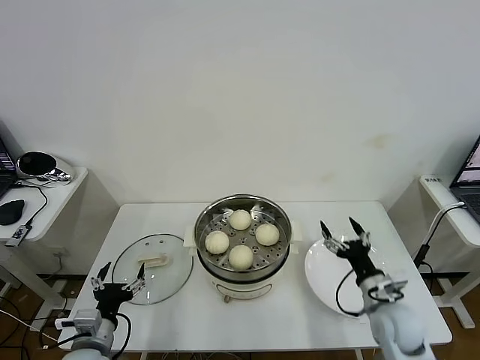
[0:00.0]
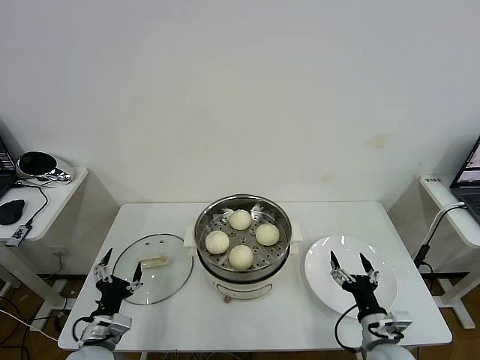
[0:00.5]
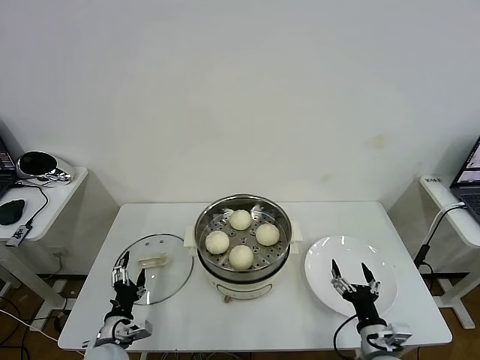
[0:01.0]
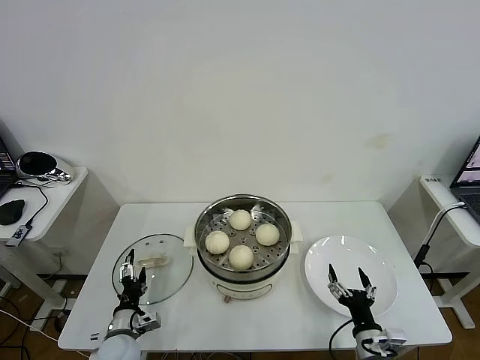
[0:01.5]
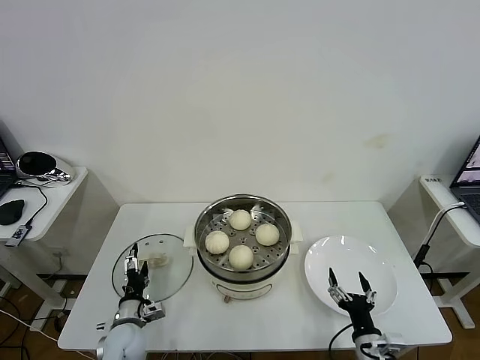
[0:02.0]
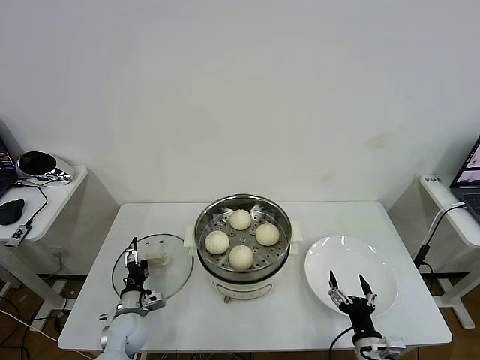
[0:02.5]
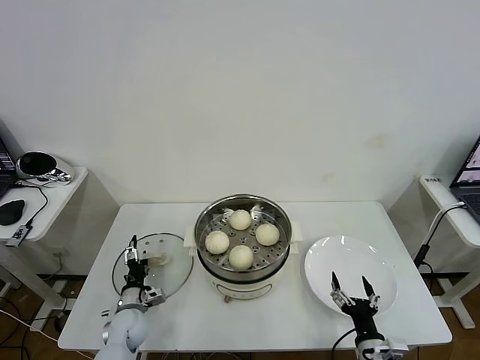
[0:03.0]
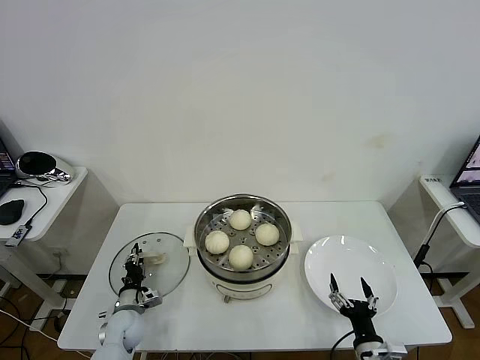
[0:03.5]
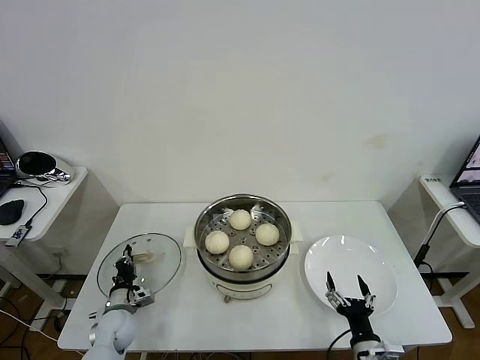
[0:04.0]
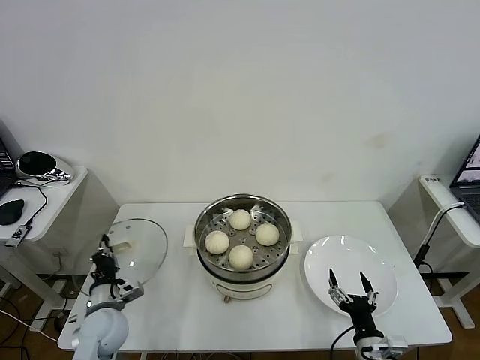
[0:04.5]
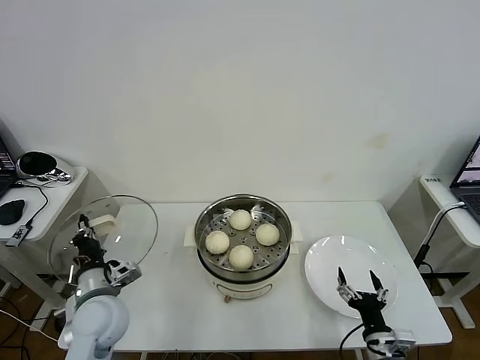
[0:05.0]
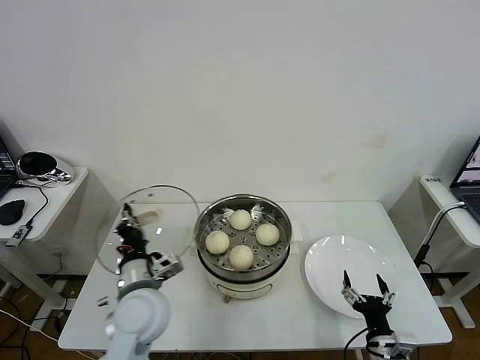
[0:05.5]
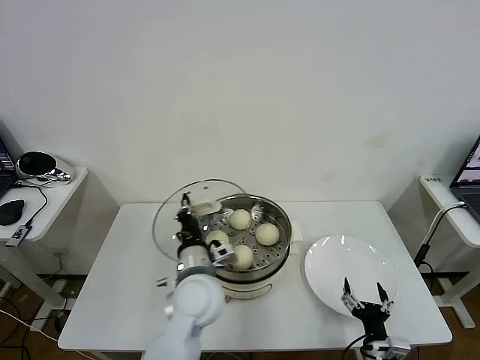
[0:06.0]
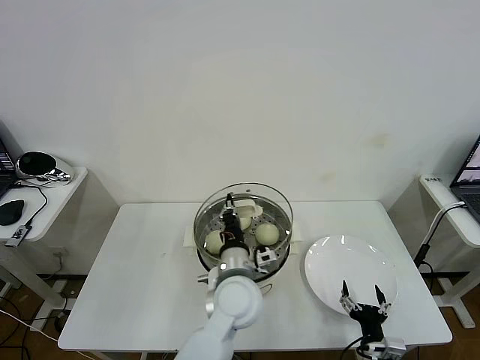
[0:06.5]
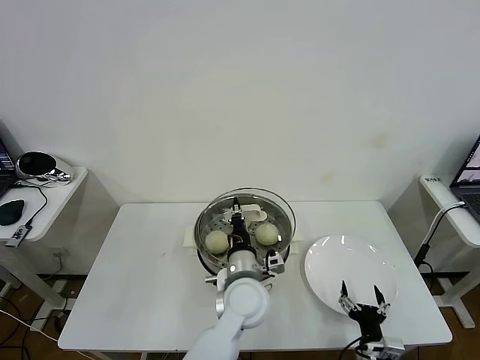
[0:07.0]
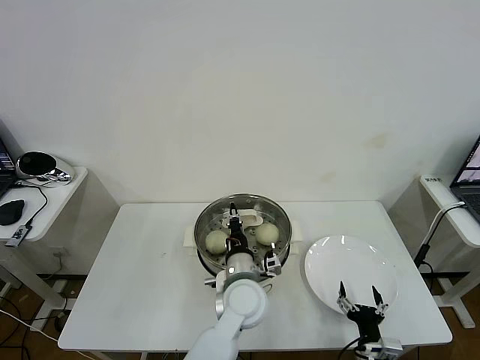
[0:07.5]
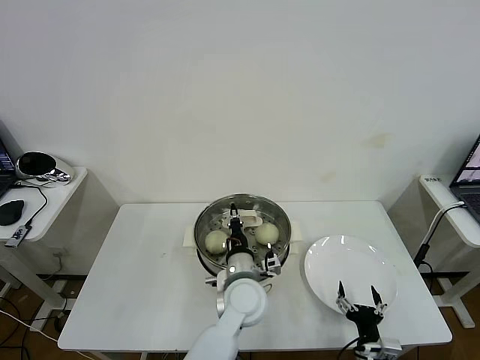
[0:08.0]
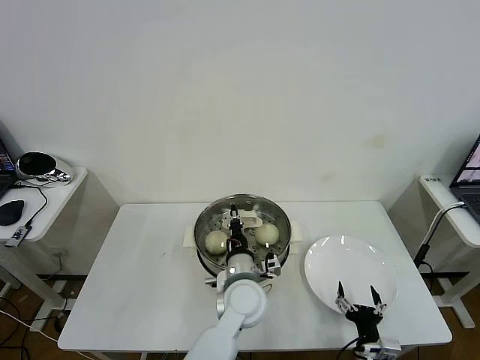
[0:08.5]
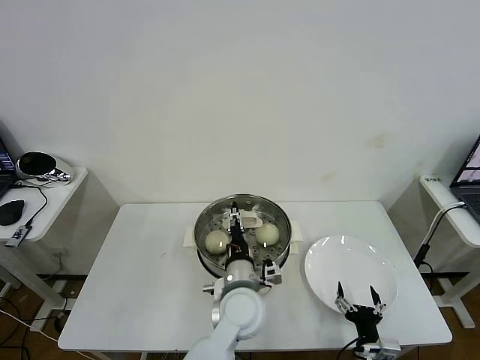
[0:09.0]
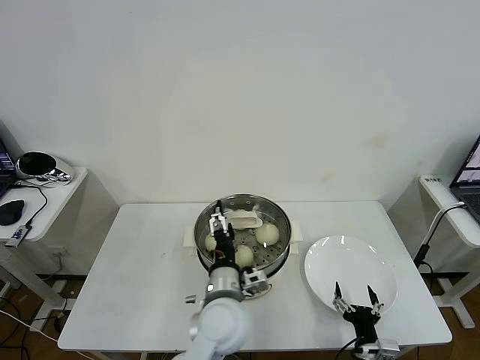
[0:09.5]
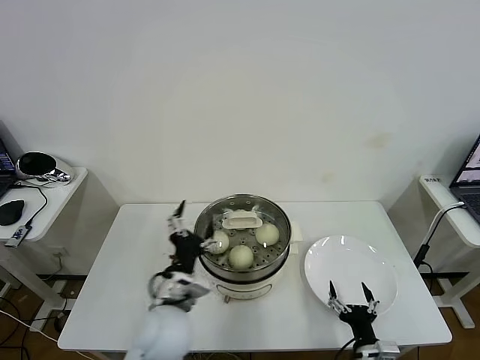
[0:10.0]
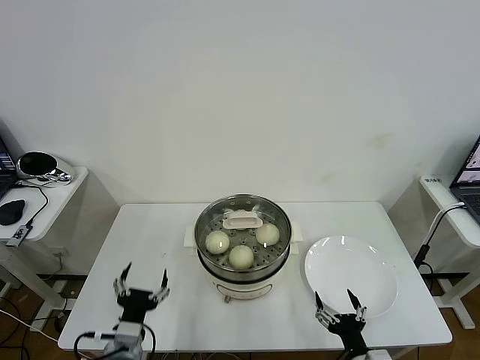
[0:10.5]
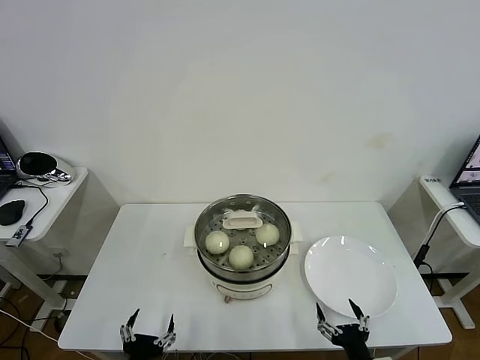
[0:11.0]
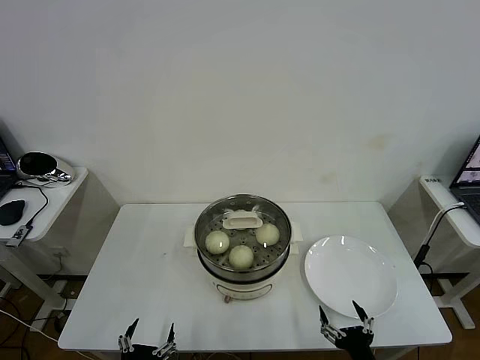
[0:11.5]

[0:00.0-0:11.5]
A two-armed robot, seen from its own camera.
Task of the whole recording: take steamed baozi put them in steamer then cover it.
Step, 0:00.0 to 0:03.5: Grasp the pot lid with left gripper.
Step, 0:04.5 to 0:09.0: Place the pot lid on the steamer with left gripper.
0:00.0 to 0:02.0: The left gripper heads downward and forward, covering some 15 cm. Meanwhile the right gripper is displaced backward and downward by some 15 cm.
0:02.0 to 0:04.0: The left gripper ends up about 5 cm from where it was, and closes up.
0:04.0 to 0:06.0: The left gripper is displaced to the right and upward by roughly 30 cm.
0:06.0 to 0:07.5: The left gripper is displaced to the right by about 10 cm.
0:07.5 to 0:09.5: The left gripper moves roughly 5 cm, and opens.
0:09.5 to 0:11.5: The right gripper shifts approximately 10 cm backward and upward. Meanwhile the left gripper heads to the left, backward and downward, covering approximately 30 cm.

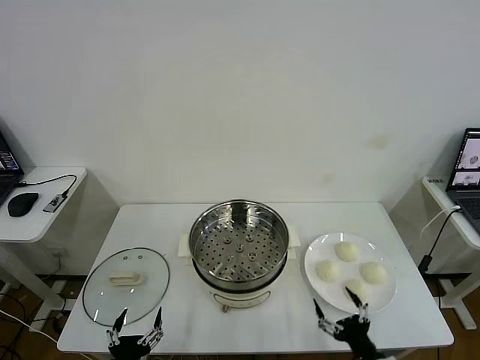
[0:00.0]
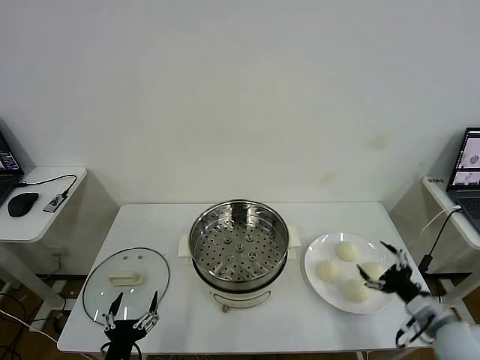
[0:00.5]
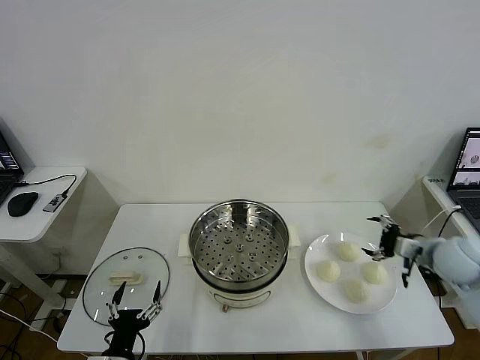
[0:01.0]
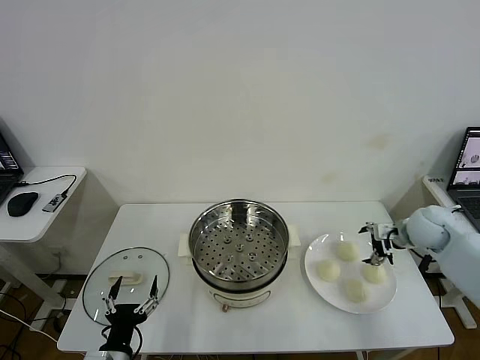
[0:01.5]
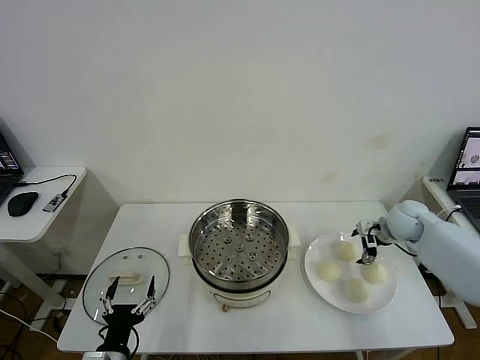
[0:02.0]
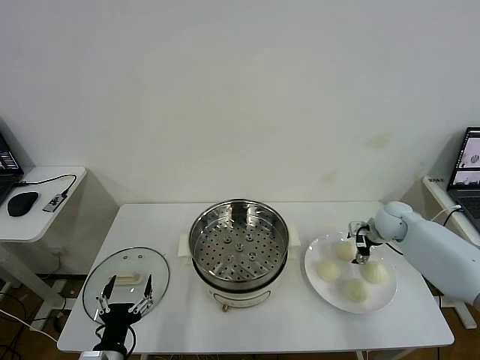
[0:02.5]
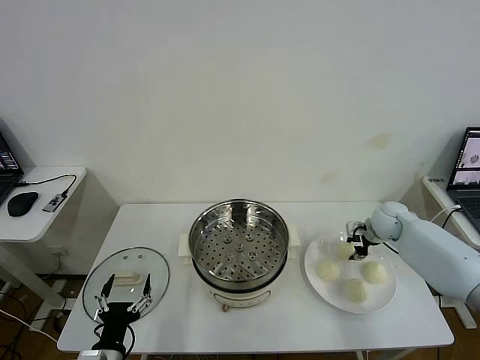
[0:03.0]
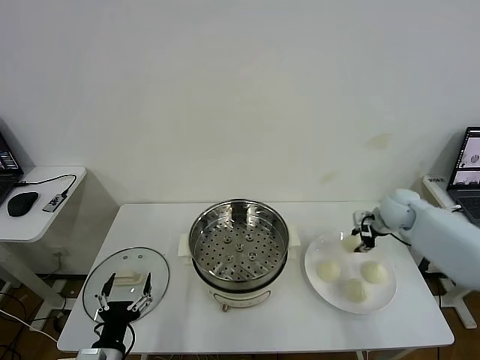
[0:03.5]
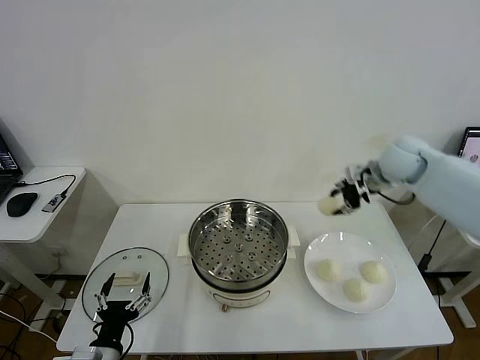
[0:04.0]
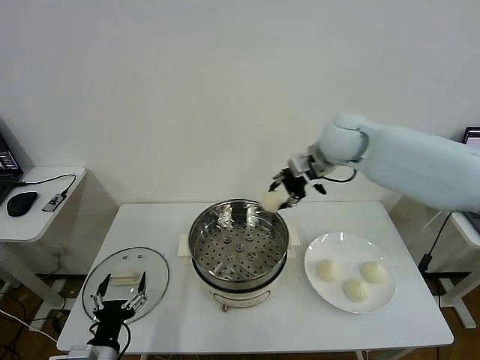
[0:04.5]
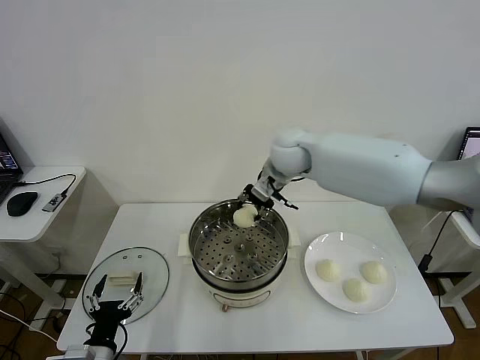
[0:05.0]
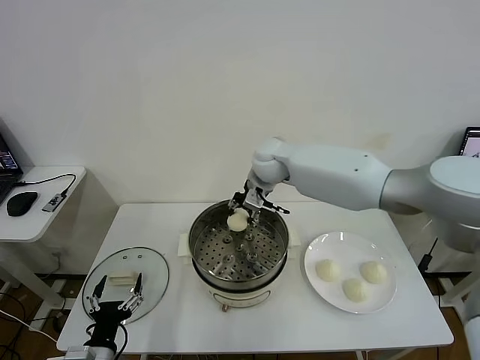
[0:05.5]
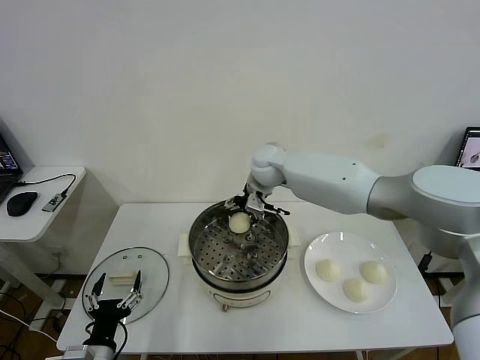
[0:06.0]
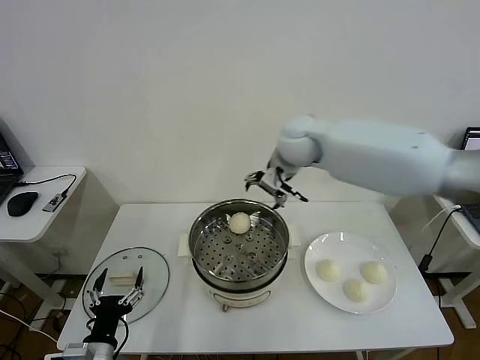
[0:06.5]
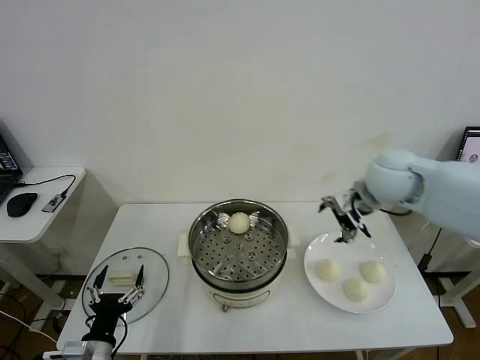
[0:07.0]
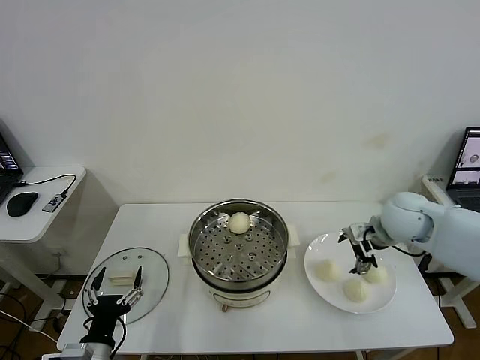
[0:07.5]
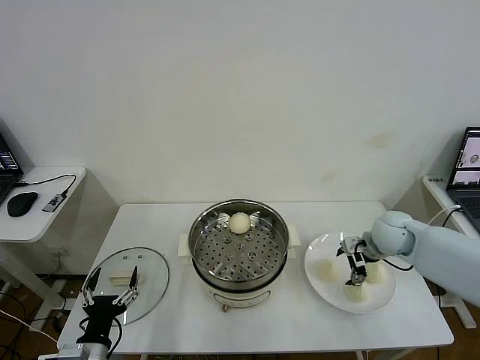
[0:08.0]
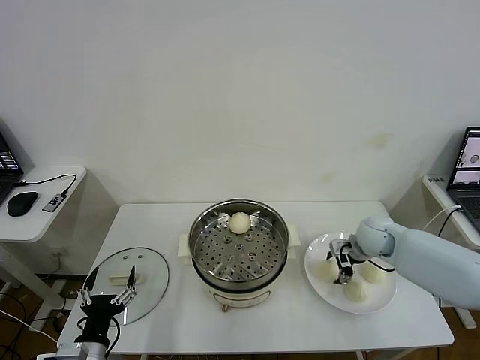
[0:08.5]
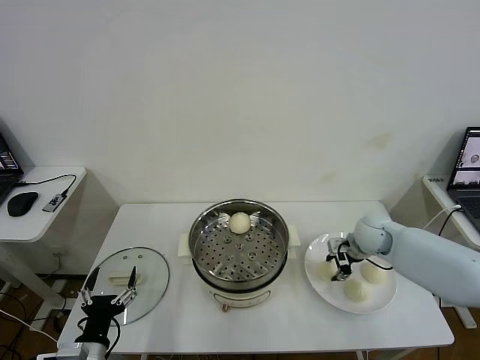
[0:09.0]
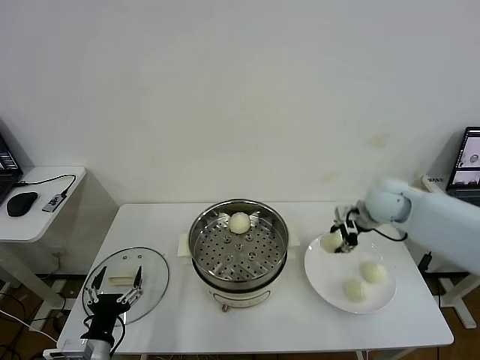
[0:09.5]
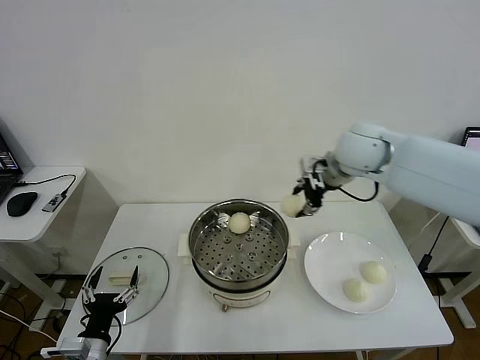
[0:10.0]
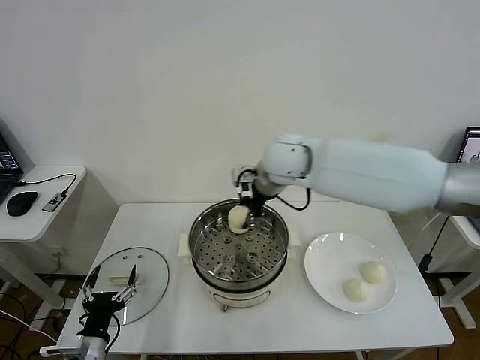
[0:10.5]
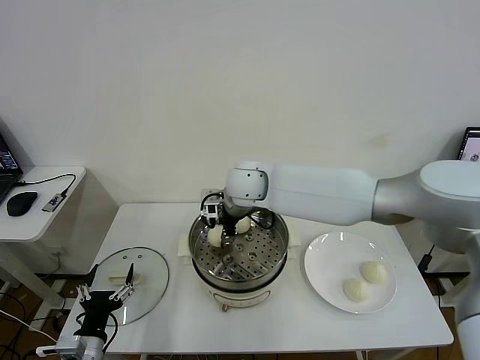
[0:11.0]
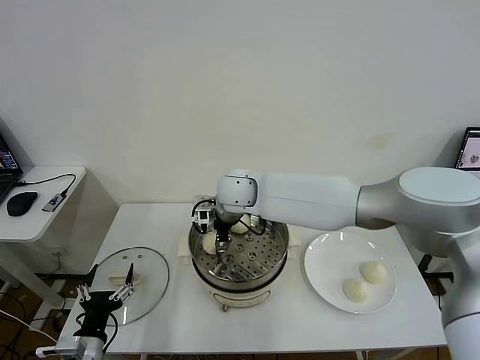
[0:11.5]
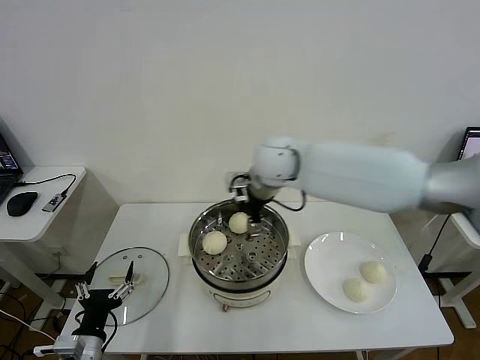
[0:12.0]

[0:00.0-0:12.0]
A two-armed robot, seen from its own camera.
Task of the whole recording: take steamed baozi put them in steamer then cover it.
Step, 0:00.0 to 0:03.0: Grasp the baozi in the plate with right gripper.
Step, 0:03.5 to 0:06.0: Place the baozi on the steamer with right gripper.
Step, 0:06.5 to 0:09.0: Grasp the baozi in the plate with right gripper.
Step, 0:09.5 to 0:11.5: Place the baozi on the steamer with right gripper.
0:02.0 to 0:04.0: The right gripper shifts some 20 cm upward and to the left, and closes.
0:04.0 to 0:06.0: The right gripper shifts some 25 cm to the left, and opens.
0:06.0 to 0:08.0: The right gripper shifts about 30 cm to the right and backward.
0:08.0 to 0:10.0: The right gripper shifts approximately 25 cm upward and to the left, and closes up.
0:10.0 to 0:12.0: The right gripper shifts about 15 cm to the left, and opens its fingers.

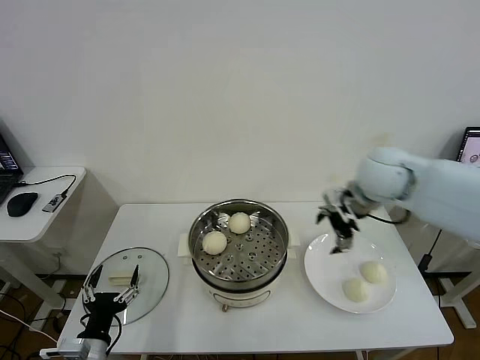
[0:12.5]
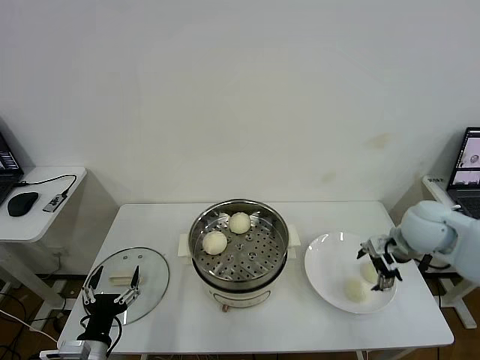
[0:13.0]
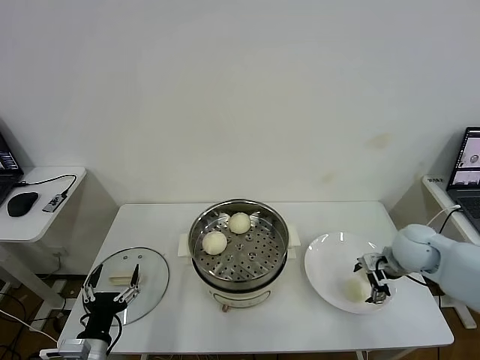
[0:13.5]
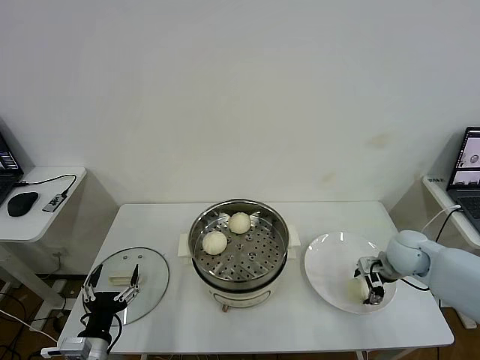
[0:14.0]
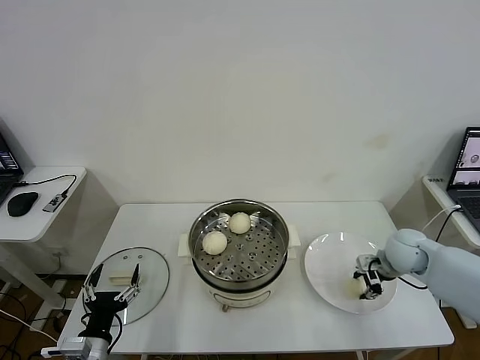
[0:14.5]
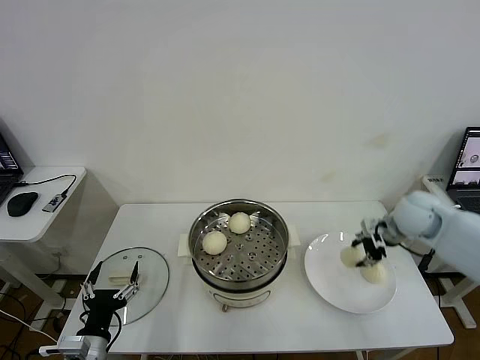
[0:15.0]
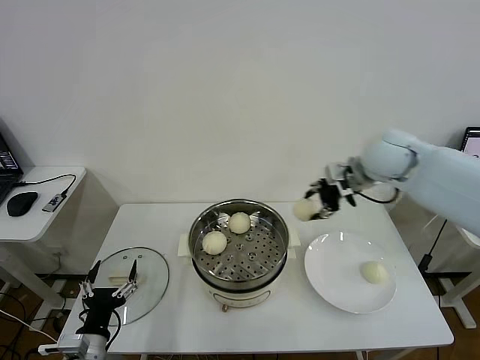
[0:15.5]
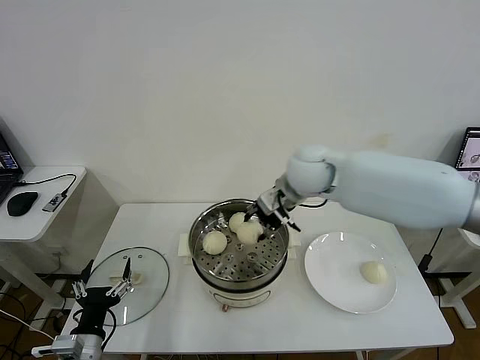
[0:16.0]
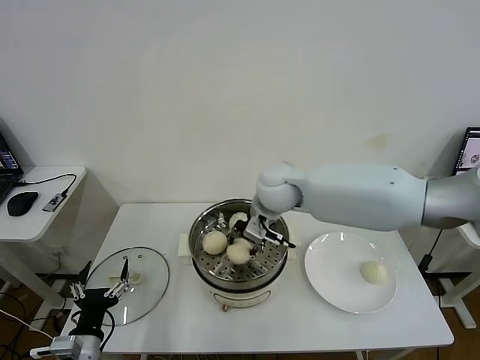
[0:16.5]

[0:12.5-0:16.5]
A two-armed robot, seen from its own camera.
Task of the whole recording: take steamed baozi put them in steamer then cover it.
Step, 0:12.5 to 0:14.5: Grasp the baozi in the plate with right gripper.
0:12.5 to 0:14.5: The right gripper heads downward and to the right, covering about 20 cm, and closes its fingers.
0:14.5 to 0:16.5: The right gripper goes approximately 35 cm to the left and upward.
